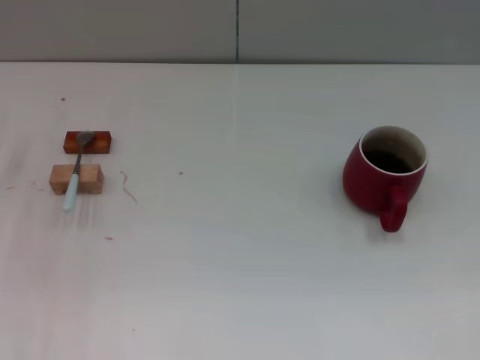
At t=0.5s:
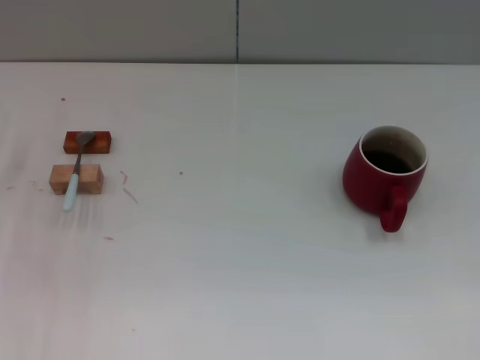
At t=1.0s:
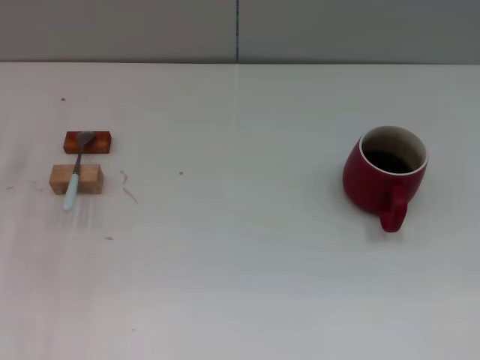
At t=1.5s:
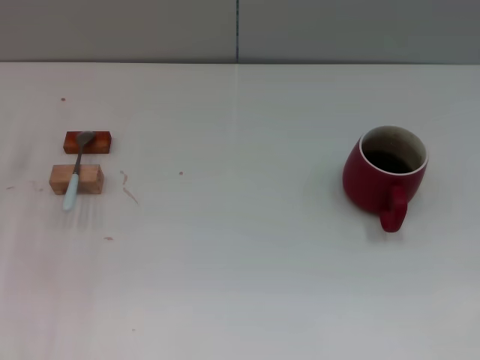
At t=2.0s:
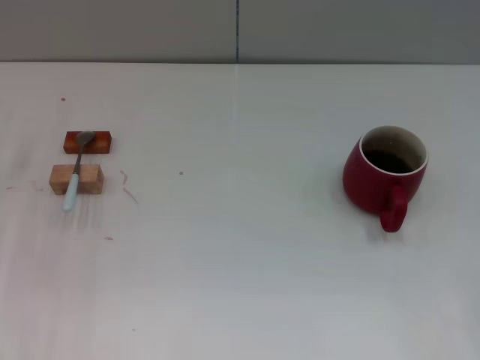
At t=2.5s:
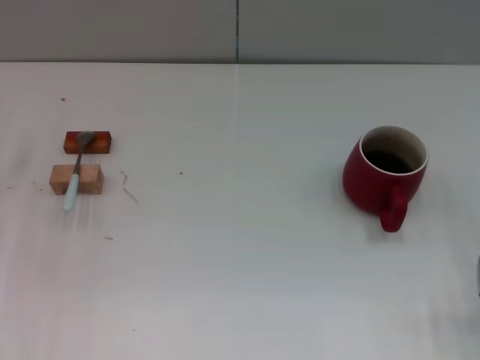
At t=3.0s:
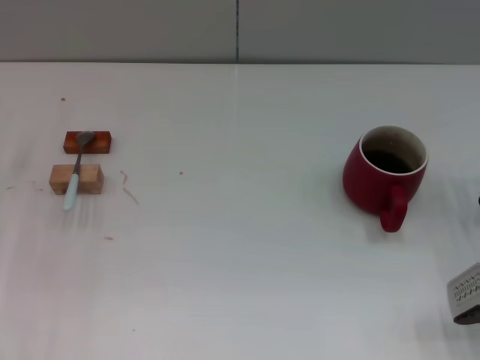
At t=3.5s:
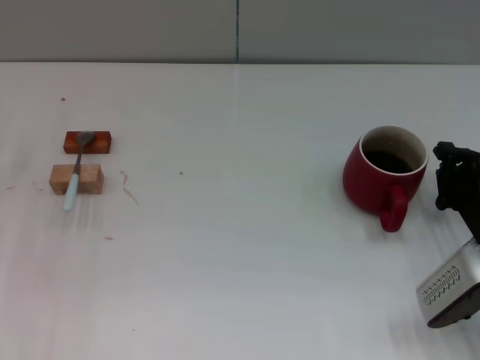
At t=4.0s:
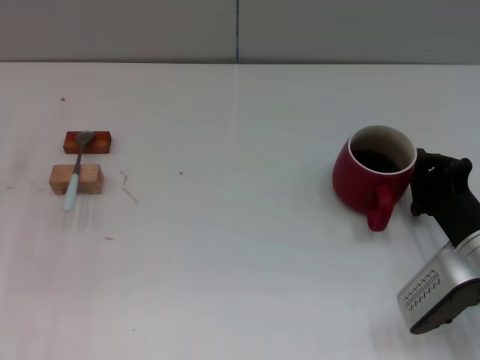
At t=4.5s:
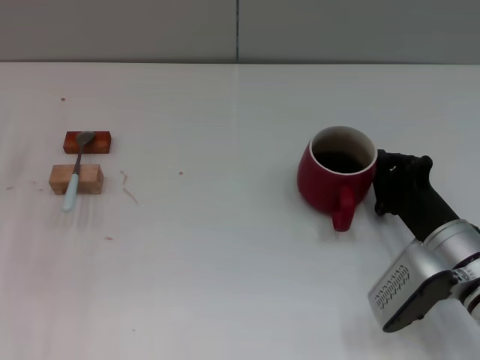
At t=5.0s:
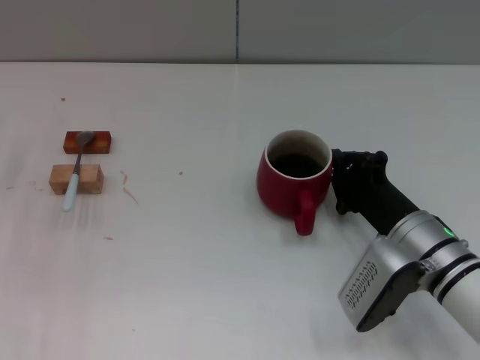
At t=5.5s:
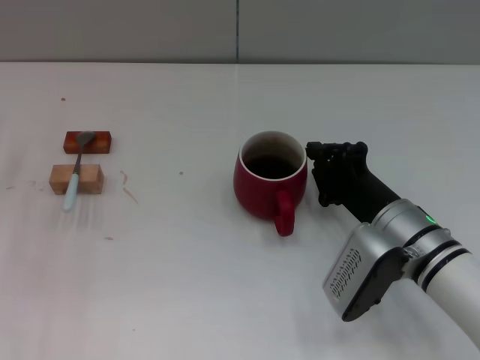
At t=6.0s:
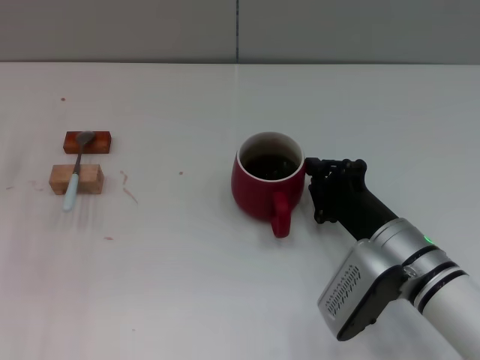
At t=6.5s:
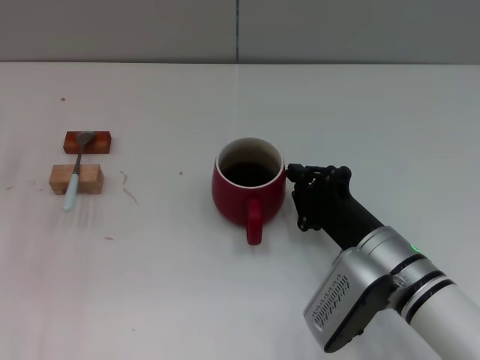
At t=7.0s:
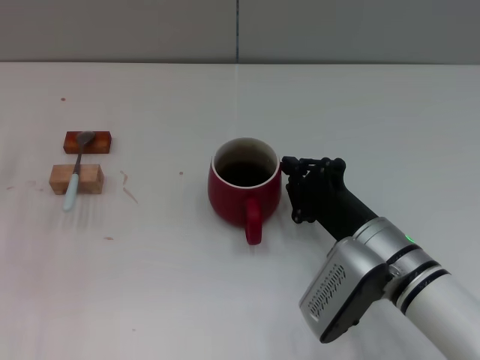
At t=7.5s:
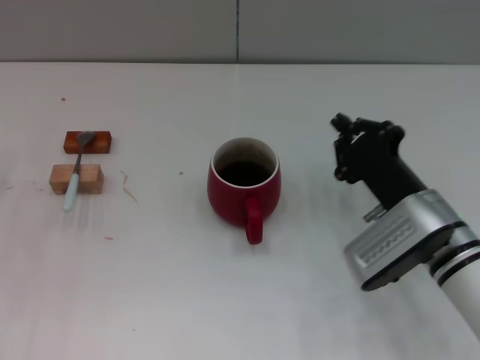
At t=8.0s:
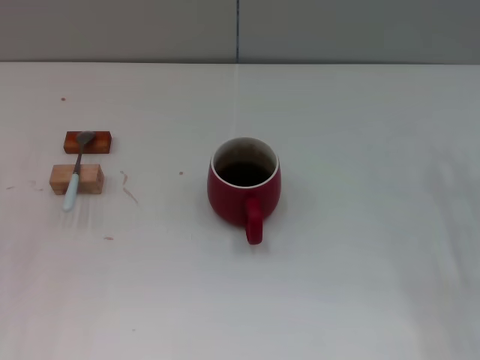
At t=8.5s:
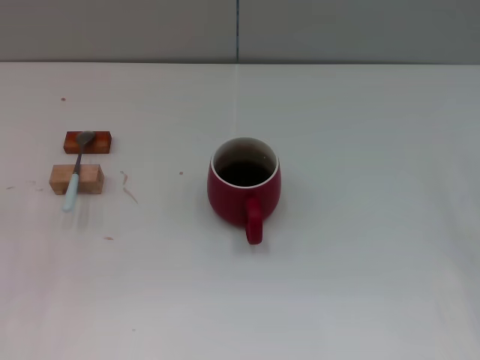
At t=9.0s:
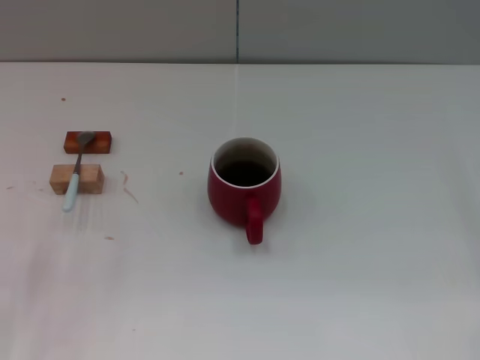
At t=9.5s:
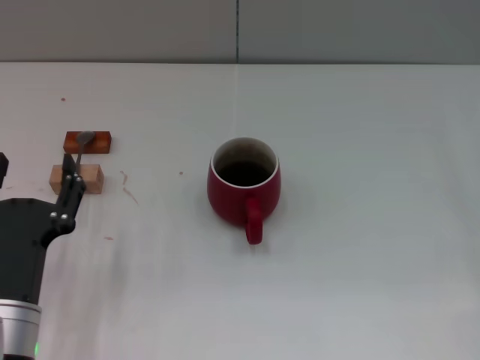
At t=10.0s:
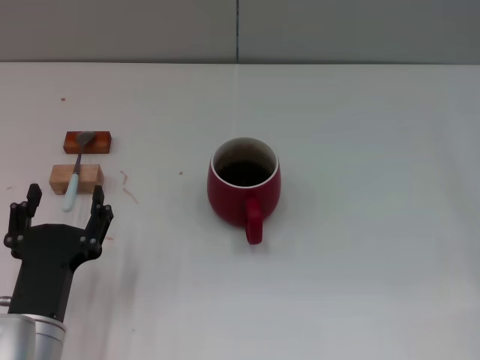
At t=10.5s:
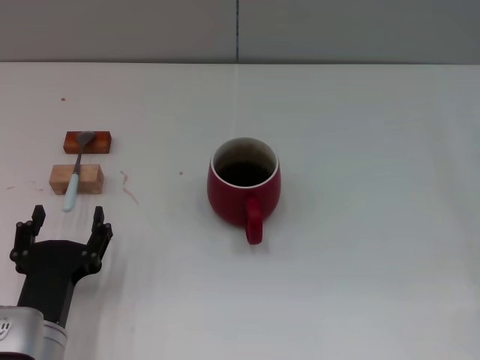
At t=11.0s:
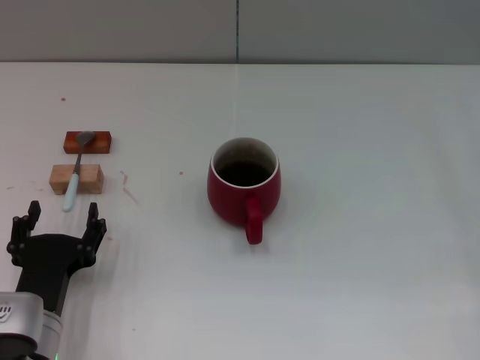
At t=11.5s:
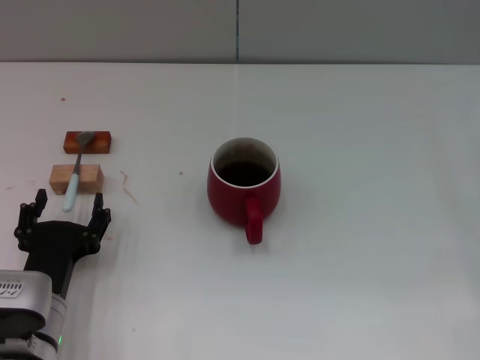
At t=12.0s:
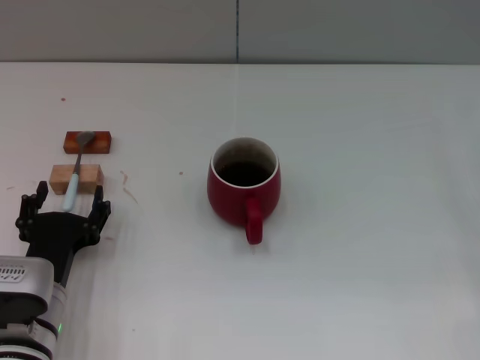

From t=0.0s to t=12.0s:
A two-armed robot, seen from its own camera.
Task of the whole recording: Move the red cup to the center, lift the blue spoon, stir it three times in the cup, and put the spoon into the cup.
Step, from t=0.0s to t=7.0s: Move the cup with coffee to the center of view with the right gripper.
From t=2.0s to t=4.0s: The right gripper heads to the left, covering approximately 10 cm.
From t=4.0s to t=6.0s: The right gripper heads to the left, covering about 10 cm.
From t=6.0s to t=8.0s: The right gripper goes about 15 cm to the right.
From t=8.0s to t=10.0s: The left gripper travels to the right and backward by roughly 20 cm.
From t=10.0s to t=12.0s: The left gripper shifts by about 5 cm.

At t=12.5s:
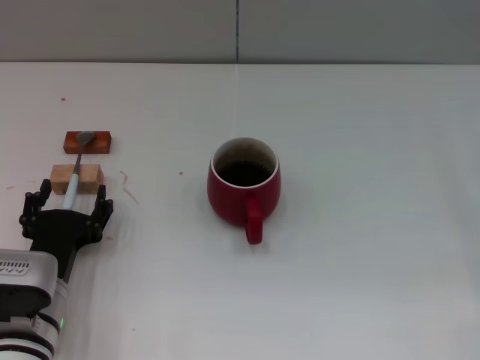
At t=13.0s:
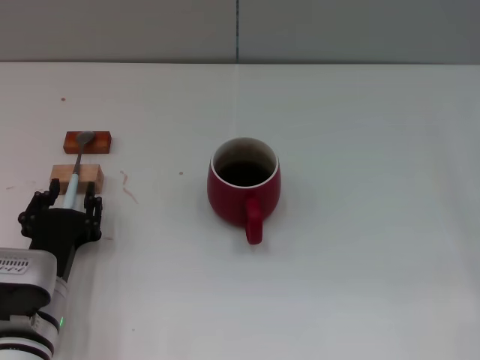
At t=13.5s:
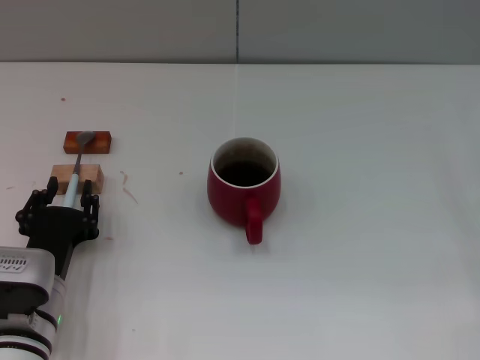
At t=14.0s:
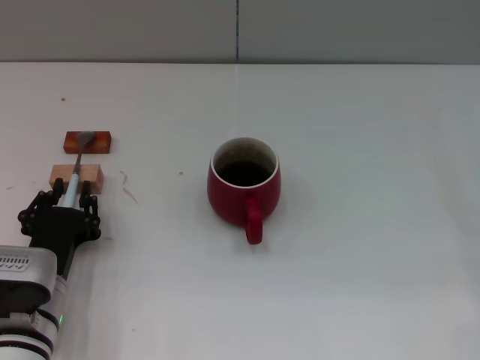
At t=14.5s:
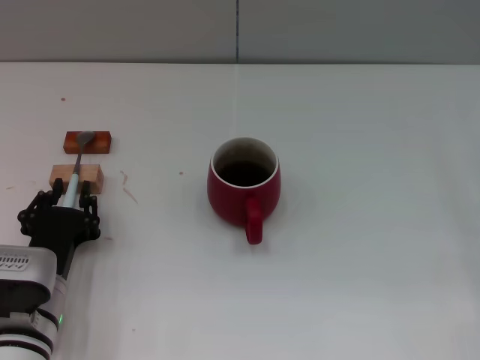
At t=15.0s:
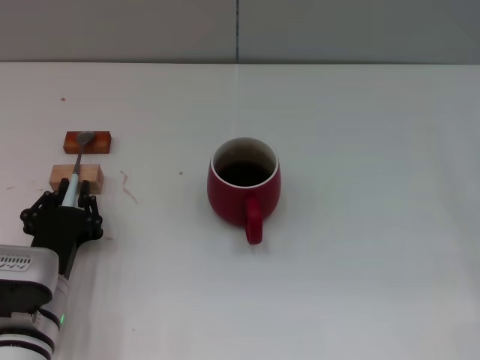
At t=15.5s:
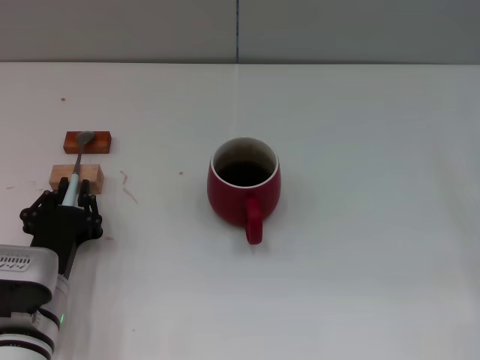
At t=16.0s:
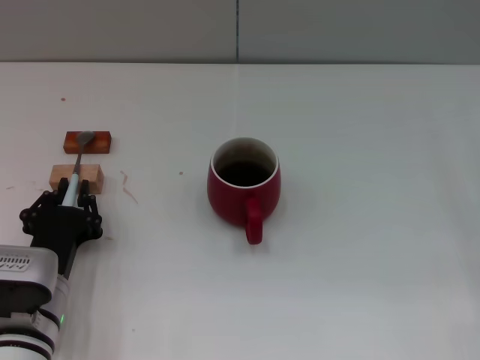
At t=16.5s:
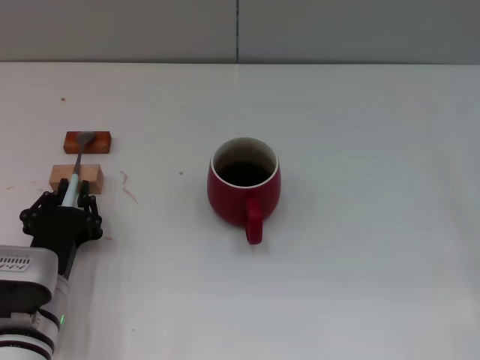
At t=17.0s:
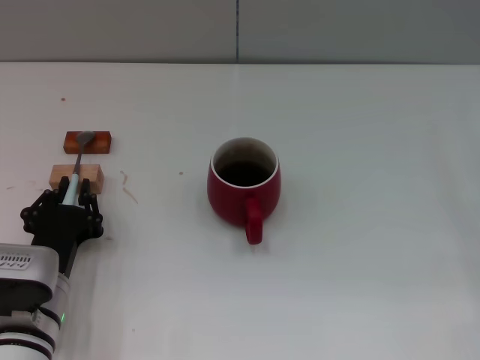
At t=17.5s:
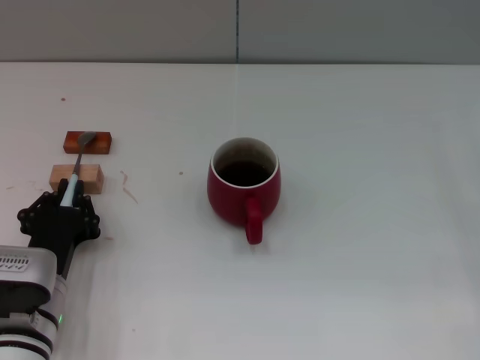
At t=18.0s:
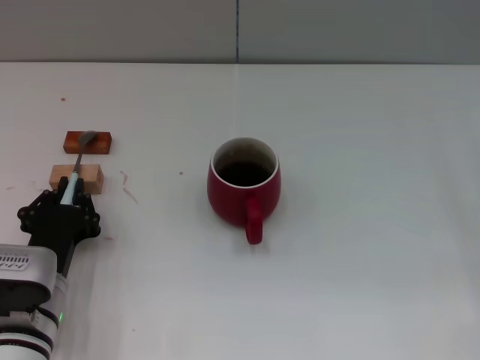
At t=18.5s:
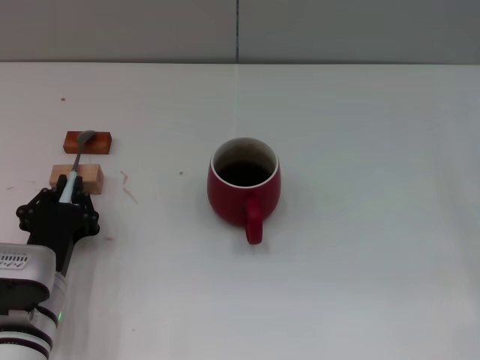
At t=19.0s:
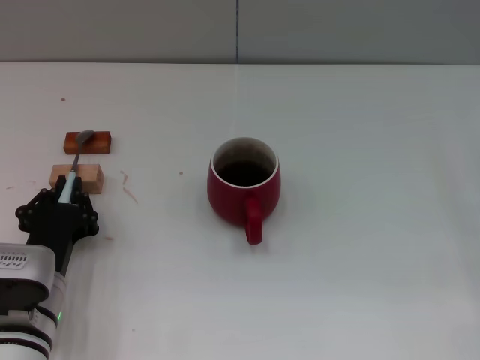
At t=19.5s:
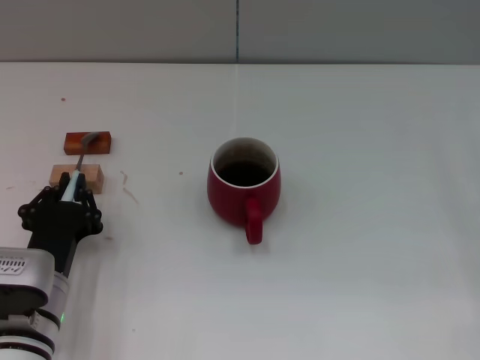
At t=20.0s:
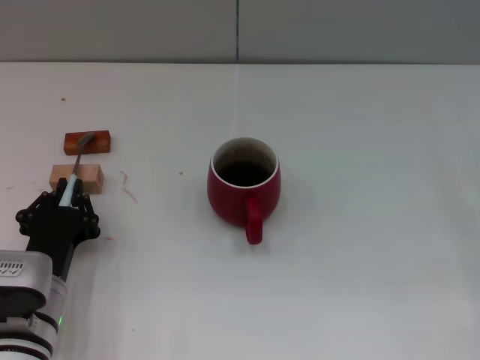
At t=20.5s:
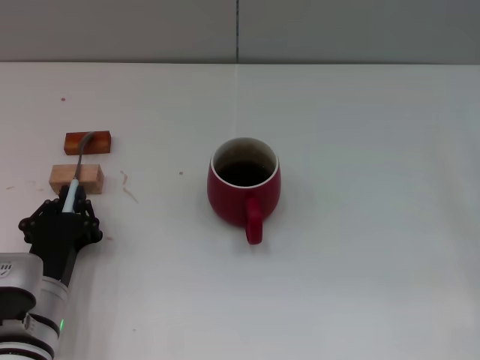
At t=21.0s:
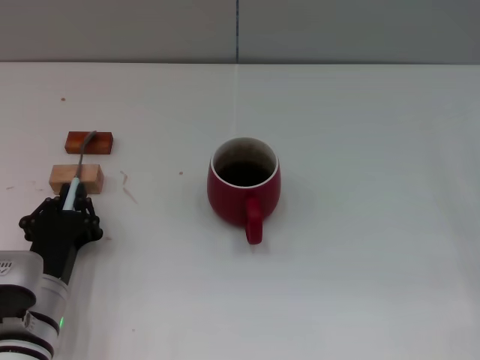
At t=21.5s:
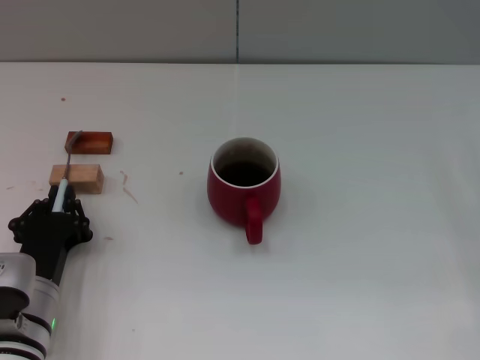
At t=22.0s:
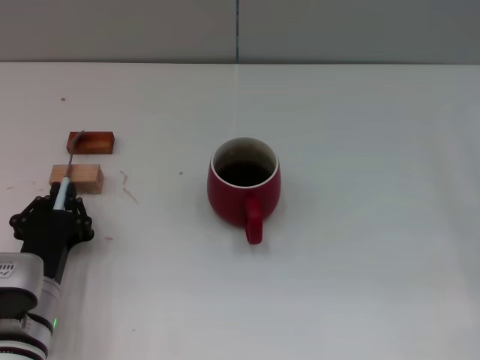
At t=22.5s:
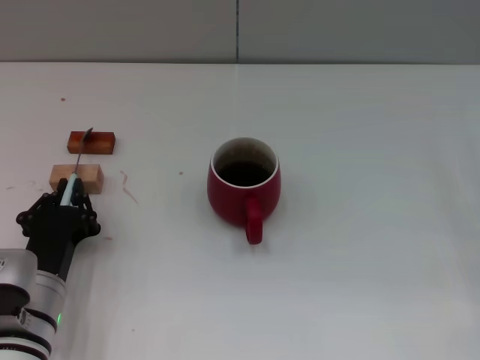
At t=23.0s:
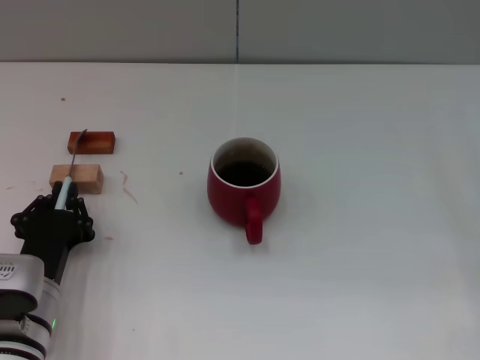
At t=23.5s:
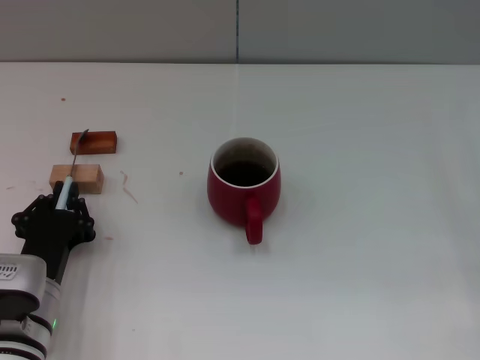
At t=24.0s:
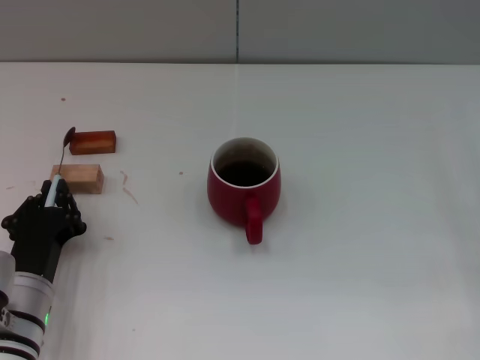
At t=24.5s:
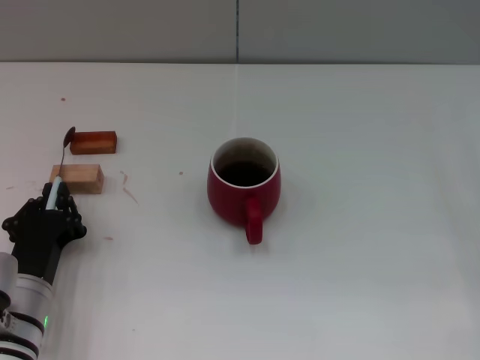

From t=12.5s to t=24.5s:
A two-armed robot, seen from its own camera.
Task of the whole recording: Move the red cup to the center, lift the blue spoon, stir it three times in the cup, and put the spoon into the cup.
From t=12.5s to t=14.5s: The left gripper closes up.
From t=14.5s to t=18.5s: Both grippers stay about where they are.
From t=18.5s to t=20.5s: The grippers stay close to where they were, moving slightly.
From t=20.5s to t=22.5s: Both grippers stay put.
From t=22.5s to t=24.5s: There are only small adjustments of the grippers.

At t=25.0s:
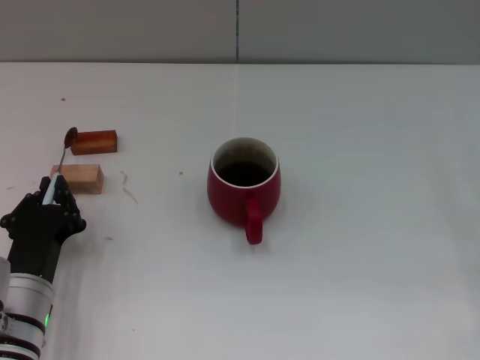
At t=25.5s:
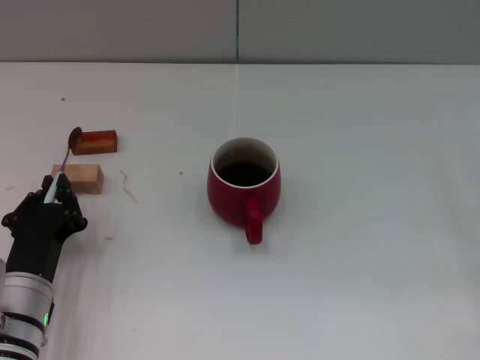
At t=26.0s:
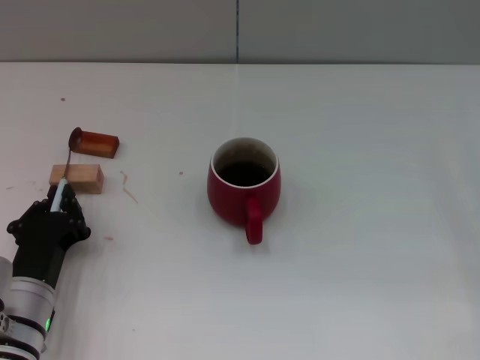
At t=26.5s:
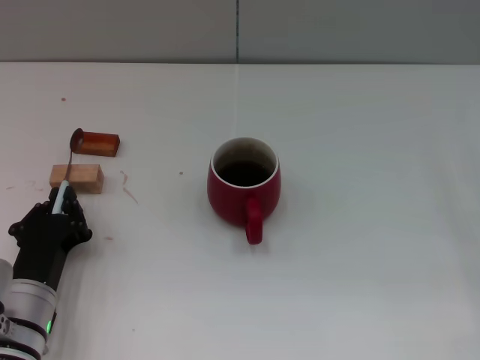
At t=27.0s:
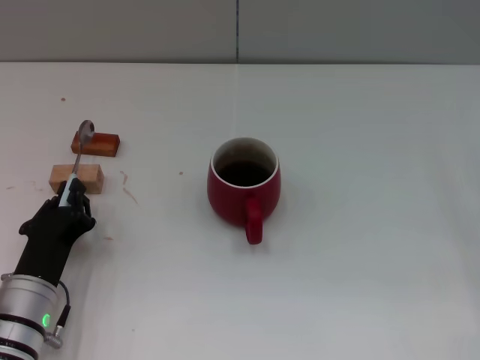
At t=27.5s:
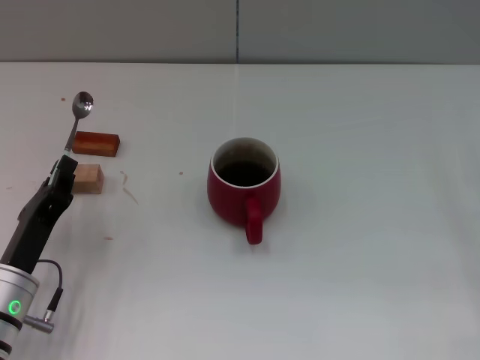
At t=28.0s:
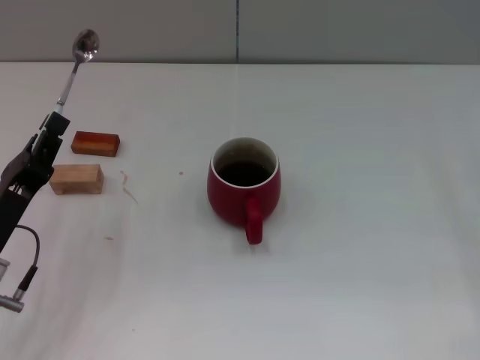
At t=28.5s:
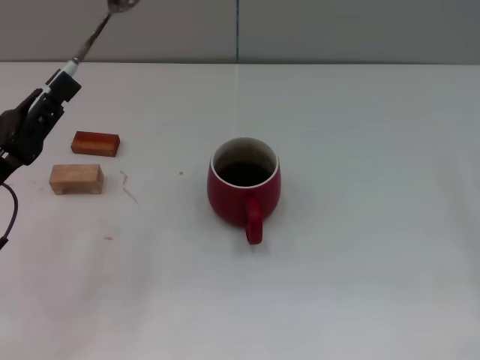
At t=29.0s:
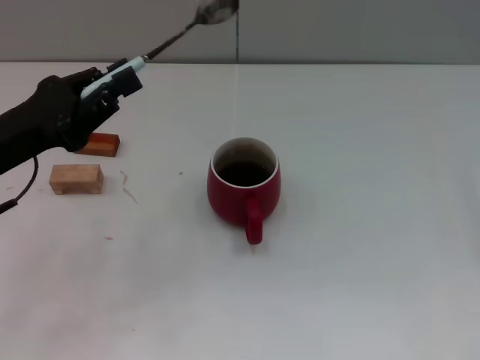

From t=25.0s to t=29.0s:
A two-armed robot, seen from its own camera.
Task of the whole recording: Move the red cup to the center, lift the blue spoon, stir it three times in the cup, and put the spoon into the cup.
Step, from t=25.0s to t=28.0s: Pick up the spoon with the left gripper.
From t=27.0s to t=29.0s: The left gripper travels upward, forward and to the left by some 15 cm.
